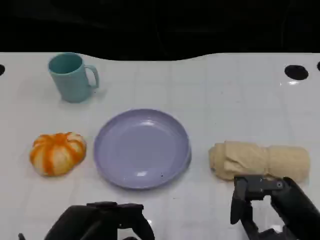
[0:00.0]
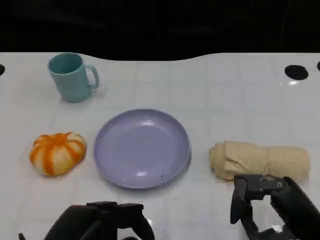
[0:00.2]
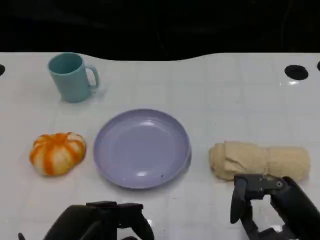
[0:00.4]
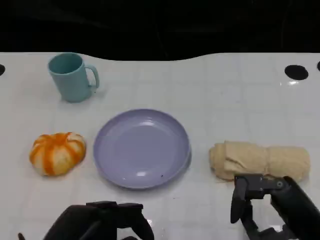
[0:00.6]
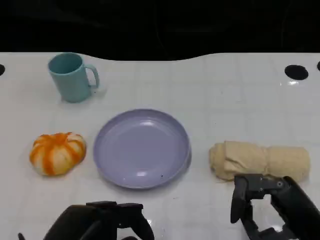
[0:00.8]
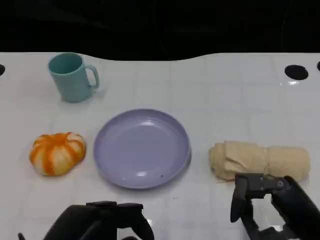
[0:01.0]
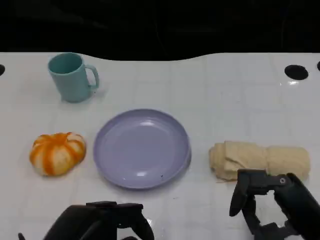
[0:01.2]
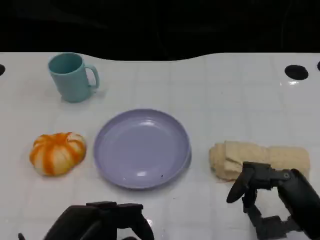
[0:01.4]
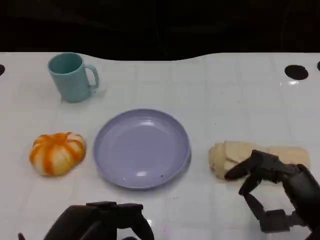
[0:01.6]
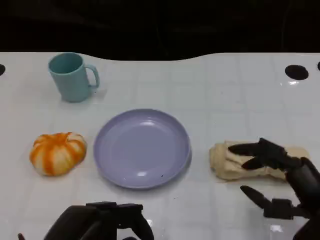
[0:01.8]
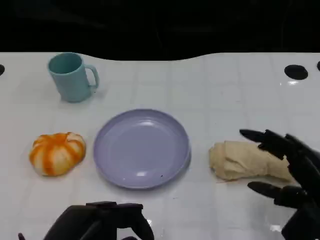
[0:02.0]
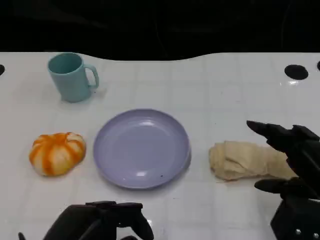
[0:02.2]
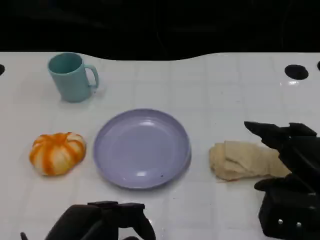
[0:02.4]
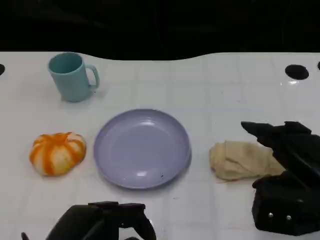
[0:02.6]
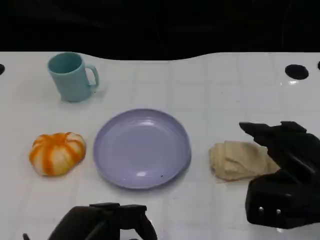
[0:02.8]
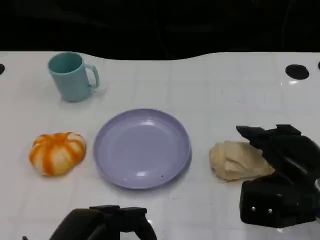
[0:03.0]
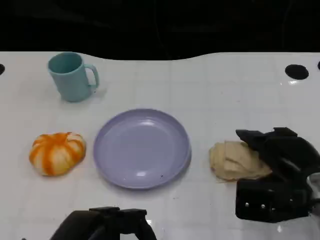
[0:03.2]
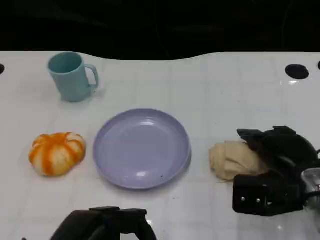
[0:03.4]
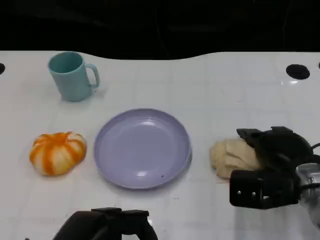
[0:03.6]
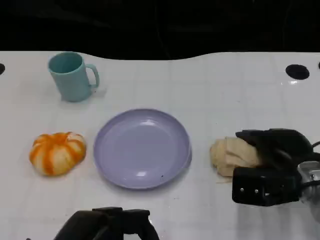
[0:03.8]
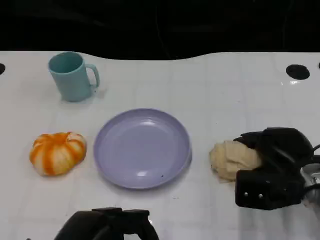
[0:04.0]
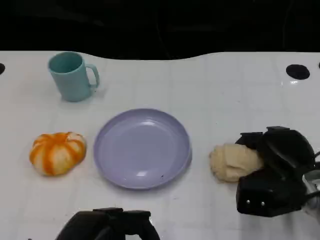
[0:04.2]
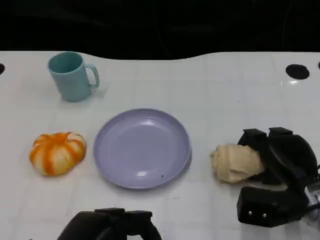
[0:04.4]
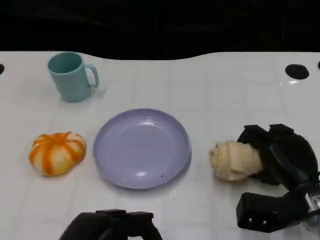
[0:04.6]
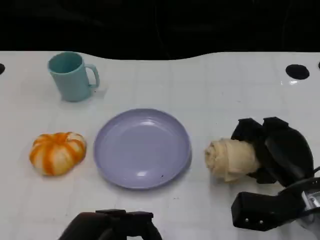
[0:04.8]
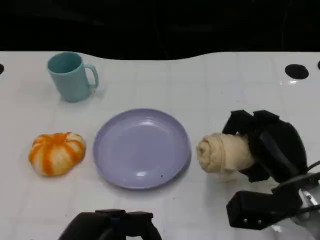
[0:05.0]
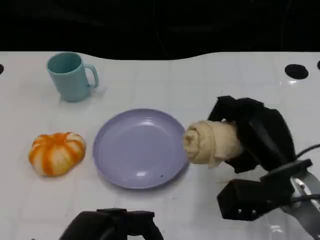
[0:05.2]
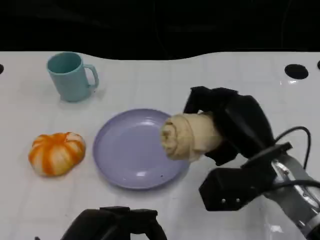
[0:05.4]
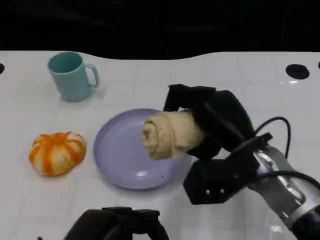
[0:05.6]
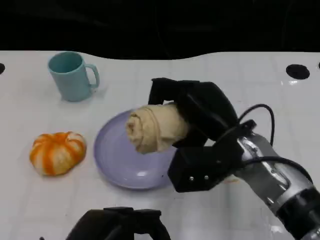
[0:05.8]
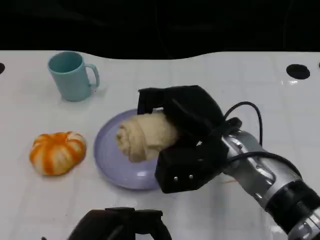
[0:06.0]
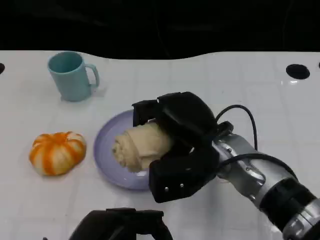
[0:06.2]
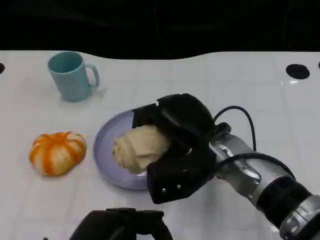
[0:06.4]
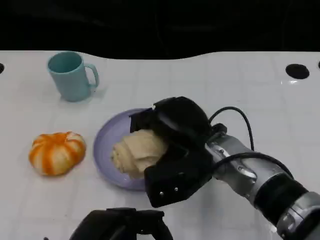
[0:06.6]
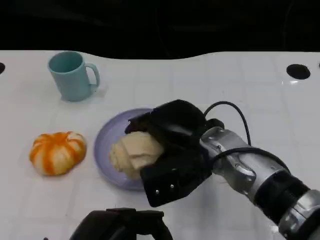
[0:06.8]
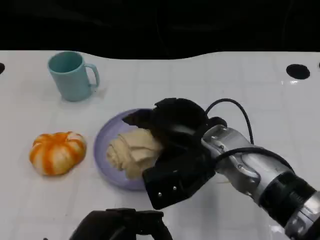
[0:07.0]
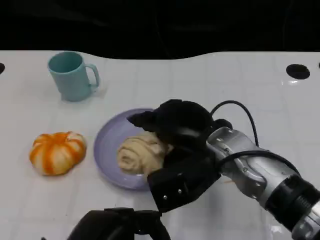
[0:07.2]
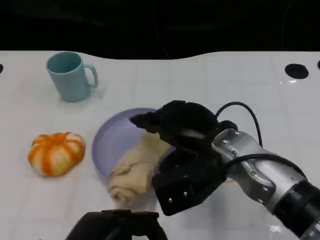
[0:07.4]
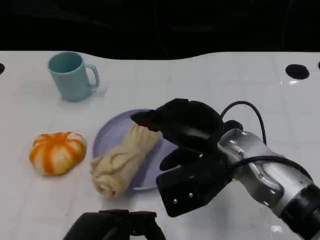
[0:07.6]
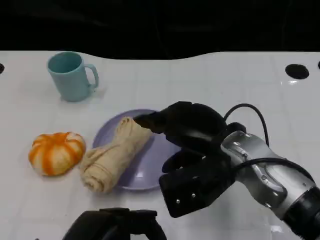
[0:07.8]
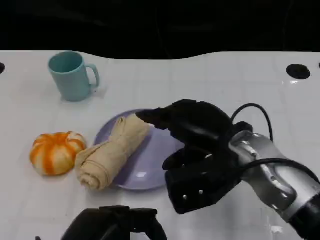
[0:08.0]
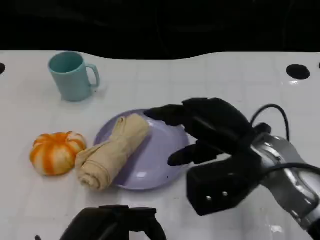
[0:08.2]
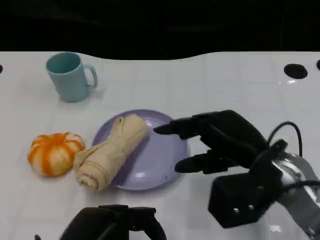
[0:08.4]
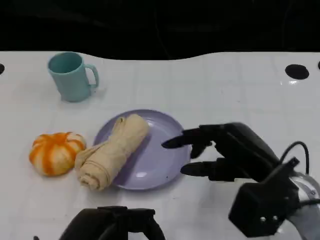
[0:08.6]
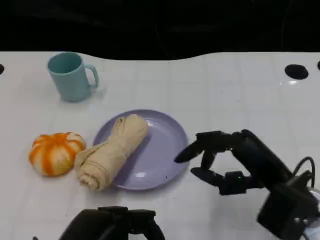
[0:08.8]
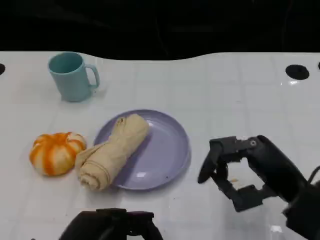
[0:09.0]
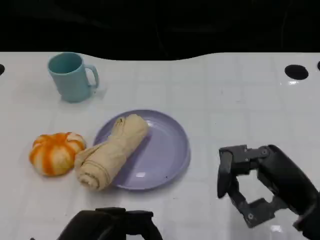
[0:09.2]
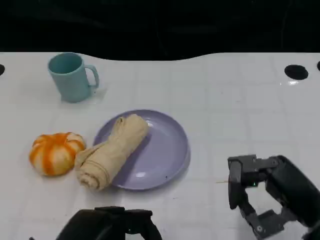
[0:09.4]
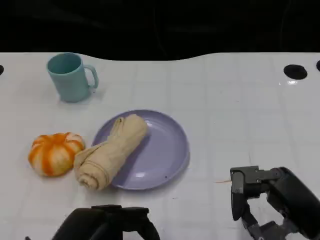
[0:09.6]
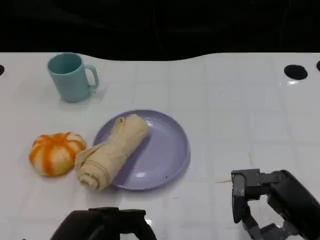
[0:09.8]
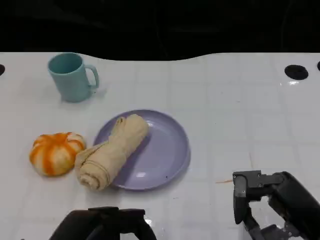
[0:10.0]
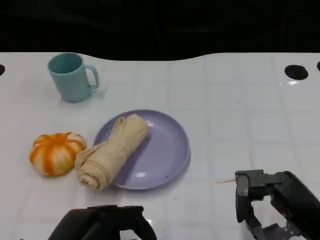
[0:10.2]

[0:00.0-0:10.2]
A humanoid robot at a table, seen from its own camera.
Task of the whole recording: Grasp the towel on the left side of the plate with the left hand and place it into the plate.
0:00.0 to 0:01.4: The hands make only small movements.
0:01.4 to 0:03.0: The right hand moves forward, approximately 5 cm.
0:03.0 to 0:04.4: The right hand travels downward by approximately 5 cm.
0:04.4 to 0:05.8: The right hand shifts roughly 15 cm to the left and upward.
0:07.2 to 0:08.8: The right hand moves to the right and backward, roughly 10 cm.
0:08.8 to 0:10.2: The right hand moves backward, approximately 5 cm.

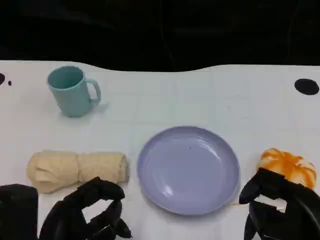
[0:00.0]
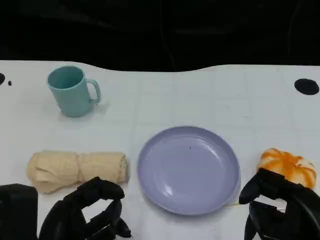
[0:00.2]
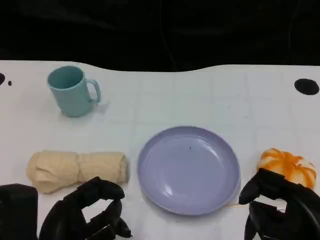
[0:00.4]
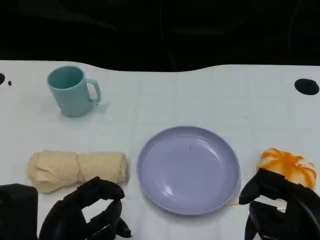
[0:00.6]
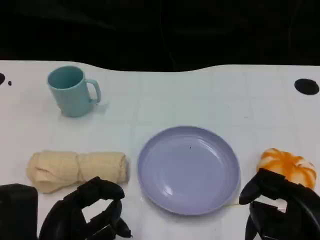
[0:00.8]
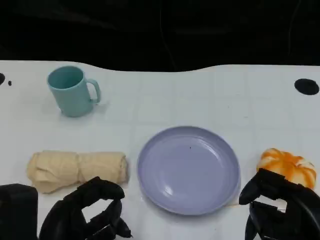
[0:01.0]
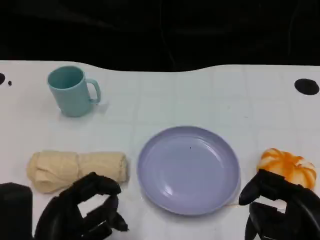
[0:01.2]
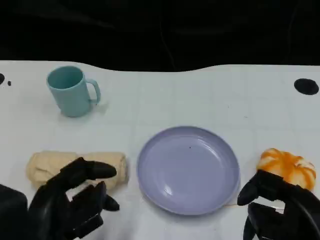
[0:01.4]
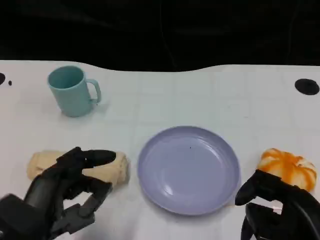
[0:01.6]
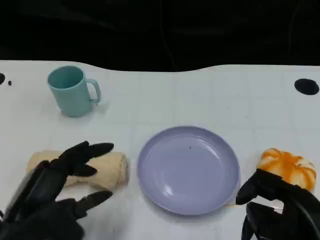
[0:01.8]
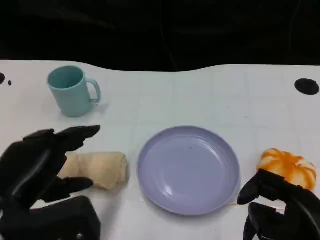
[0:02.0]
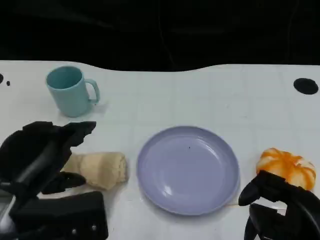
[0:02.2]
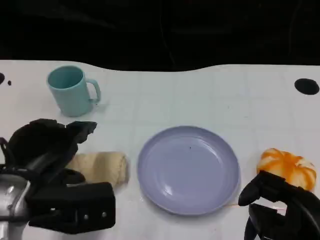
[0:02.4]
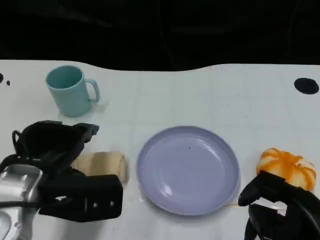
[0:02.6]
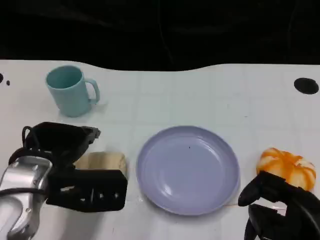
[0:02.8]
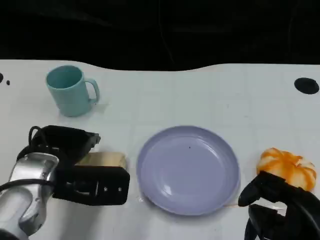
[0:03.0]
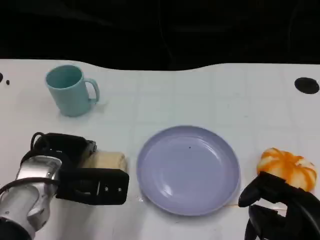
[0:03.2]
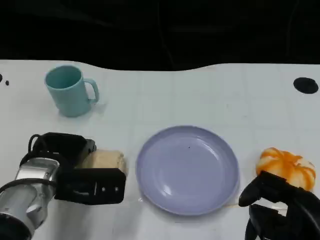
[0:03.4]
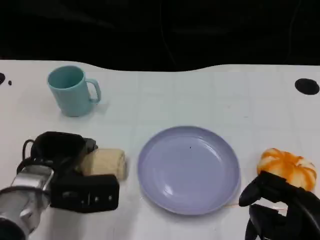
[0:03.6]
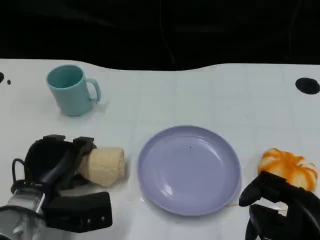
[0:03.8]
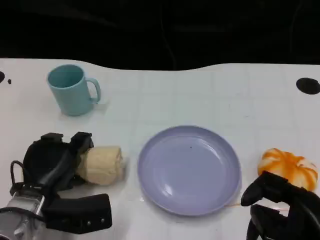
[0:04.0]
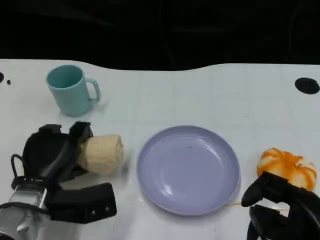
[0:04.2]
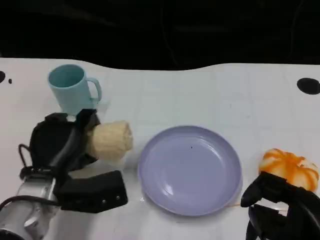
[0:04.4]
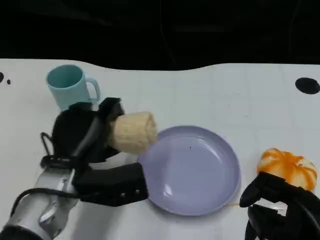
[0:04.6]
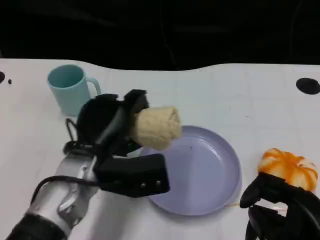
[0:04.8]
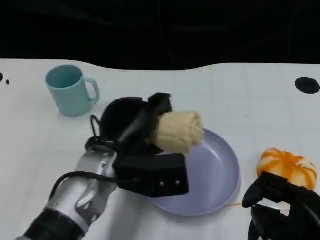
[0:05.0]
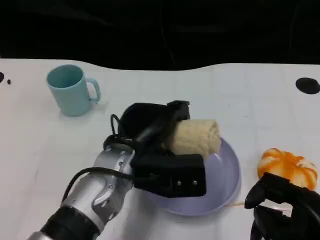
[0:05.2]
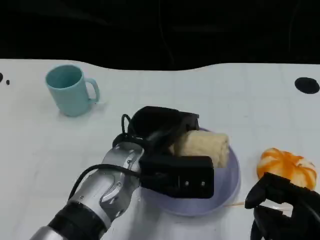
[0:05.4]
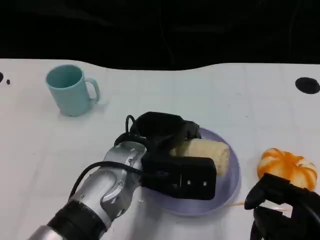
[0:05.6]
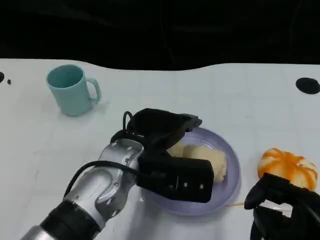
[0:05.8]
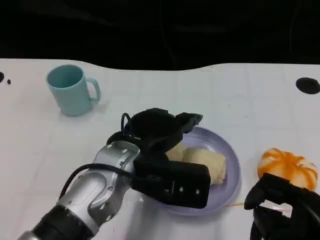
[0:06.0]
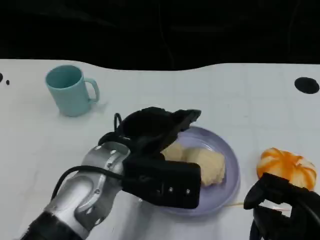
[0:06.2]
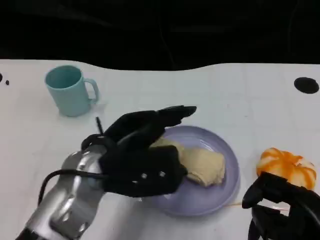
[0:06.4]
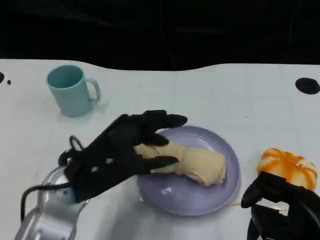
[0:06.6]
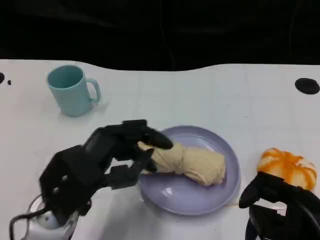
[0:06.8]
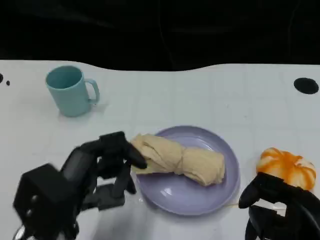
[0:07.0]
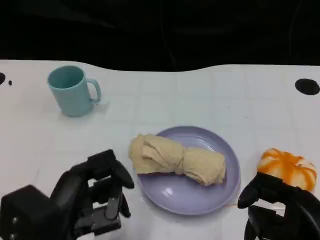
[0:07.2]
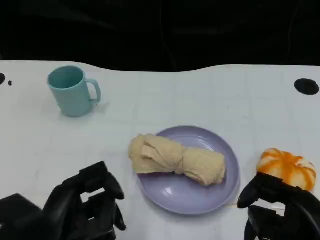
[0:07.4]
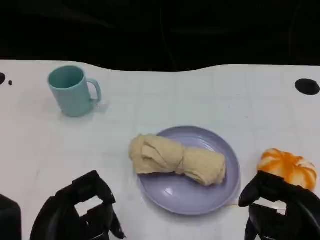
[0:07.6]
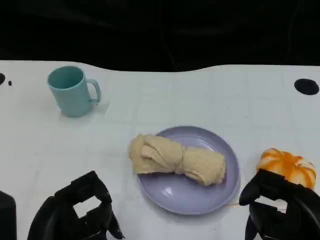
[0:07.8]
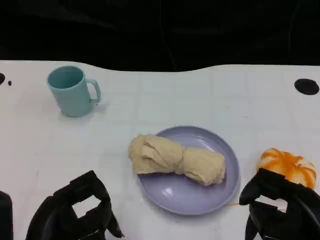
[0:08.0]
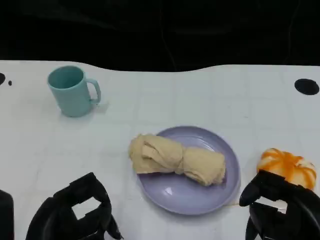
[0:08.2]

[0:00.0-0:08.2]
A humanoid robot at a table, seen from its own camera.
Task of the whole recording: Grasp the towel on the left side of the plate with the left hand and place it into the plate.
0:01.6 to 0:03.2: The left hand shifts roughly 15 cm forward.
0:03.2 to 0:05.0: The left hand is displaced to the right by about 10 cm.
0:05.0 to 0:06.6: The left hand shifts about 5 cm to the left.
0:06.6 to 0:08.2: The left hand moves backward and to the left, some 10 cm.

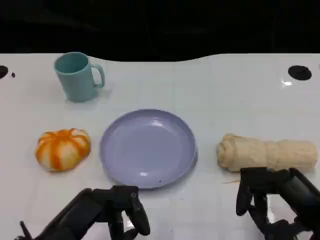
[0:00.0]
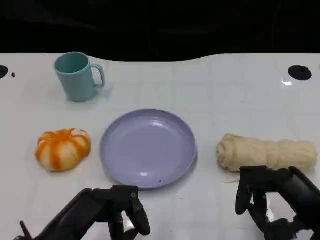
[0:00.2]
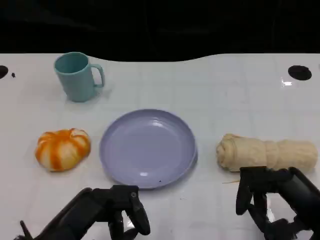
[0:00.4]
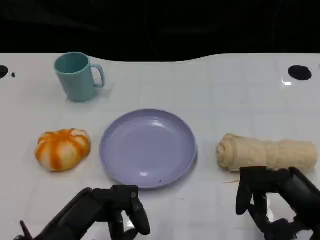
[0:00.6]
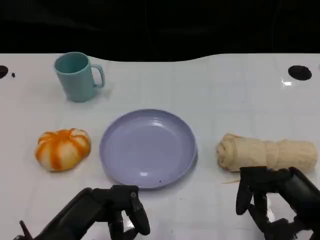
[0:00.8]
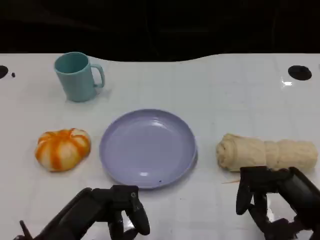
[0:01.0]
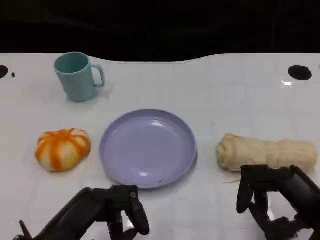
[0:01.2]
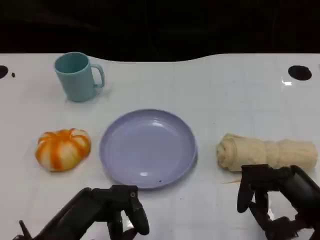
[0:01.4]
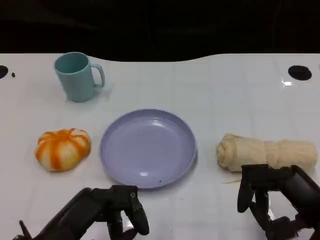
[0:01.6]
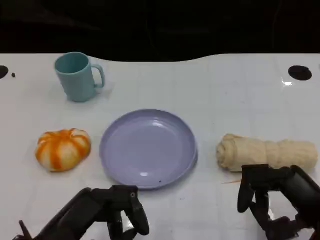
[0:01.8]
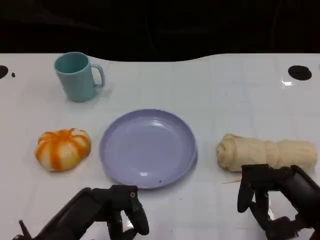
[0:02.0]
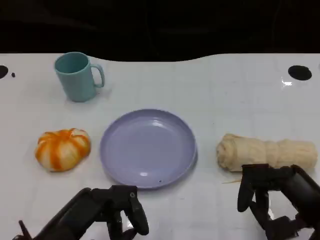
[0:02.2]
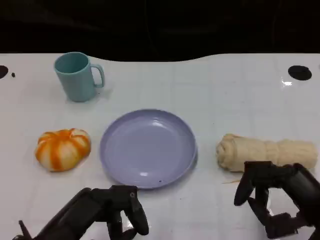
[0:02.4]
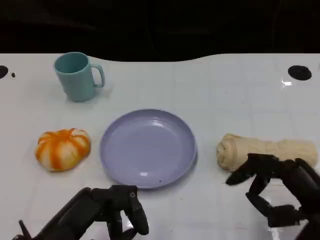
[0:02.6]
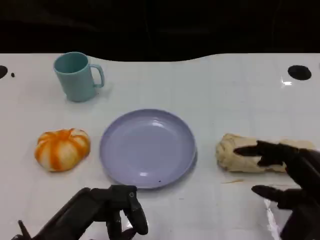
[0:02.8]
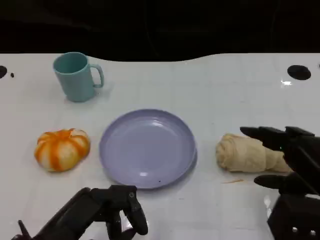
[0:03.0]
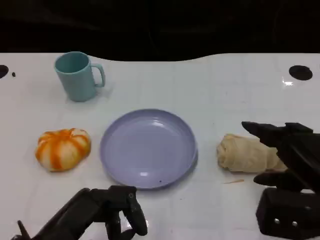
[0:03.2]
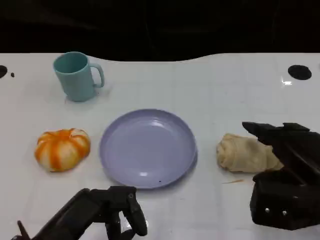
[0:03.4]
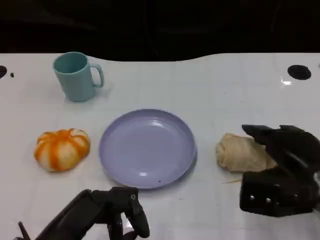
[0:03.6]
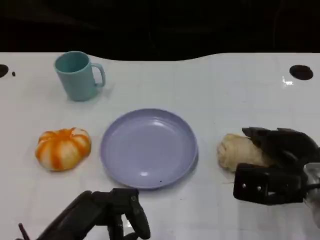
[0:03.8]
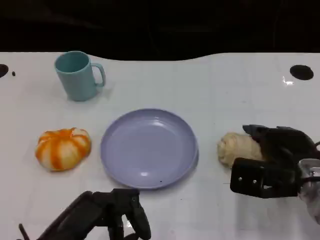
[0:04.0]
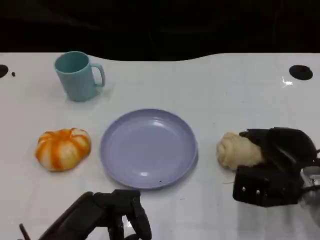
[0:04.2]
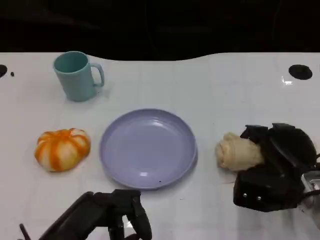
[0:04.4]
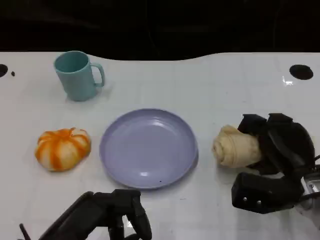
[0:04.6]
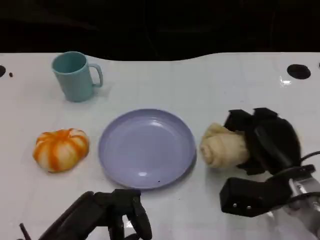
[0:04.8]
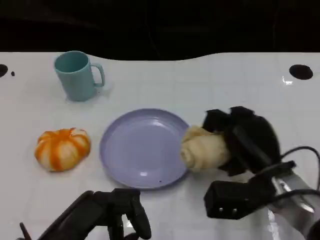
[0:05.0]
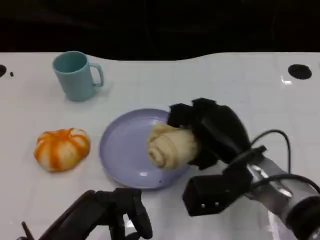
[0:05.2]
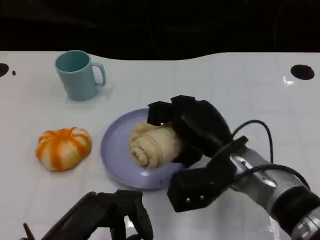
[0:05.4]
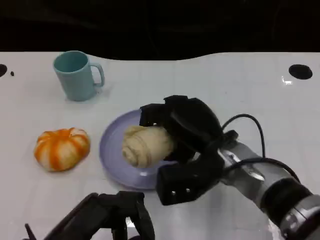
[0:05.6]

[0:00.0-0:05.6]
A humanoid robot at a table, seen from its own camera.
Task of the whole recording: Grasp the towel on the left side of the plate with the left hand and place it into the plate.
0:00.0 to 0:01.4: Neither hand changes place.
0:02.8 to 0:04.2: The right hand shifts approximately 10 cm forward and downward.
0:04.2 to 0:05.6: The right hand travels to the left by some 15 cm.
